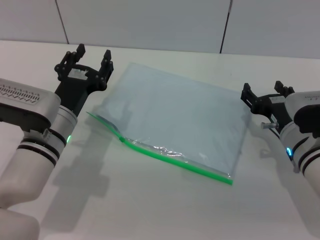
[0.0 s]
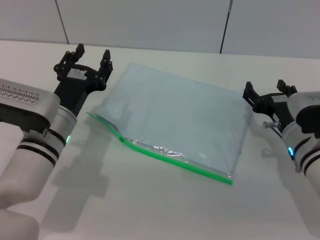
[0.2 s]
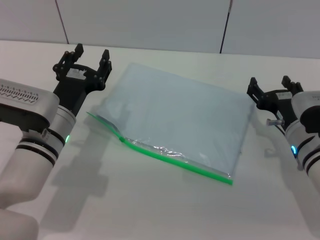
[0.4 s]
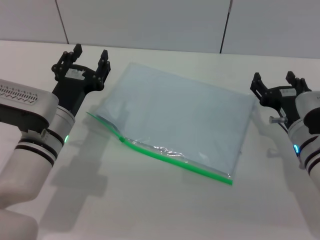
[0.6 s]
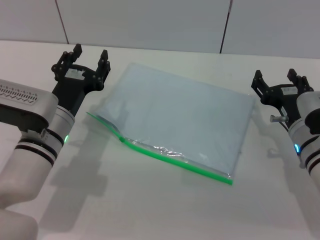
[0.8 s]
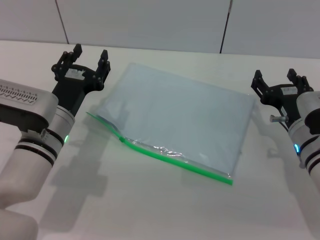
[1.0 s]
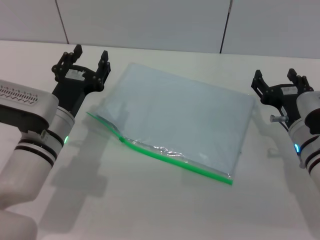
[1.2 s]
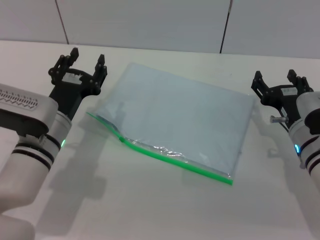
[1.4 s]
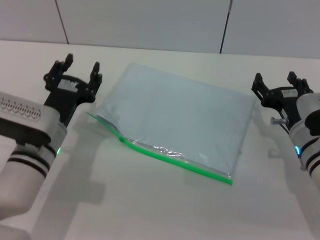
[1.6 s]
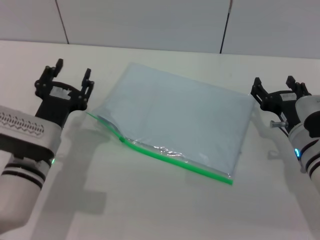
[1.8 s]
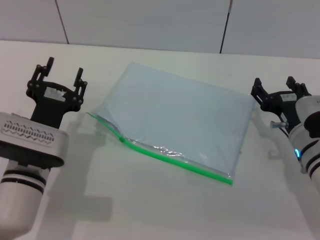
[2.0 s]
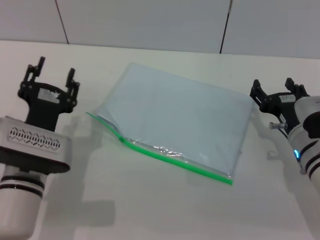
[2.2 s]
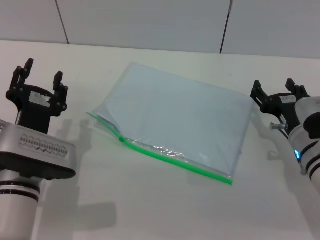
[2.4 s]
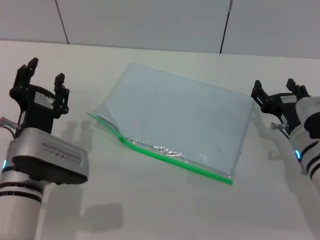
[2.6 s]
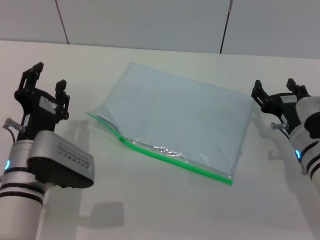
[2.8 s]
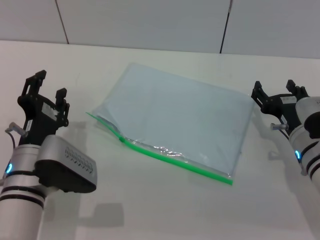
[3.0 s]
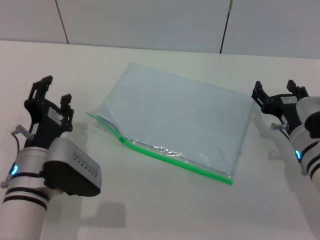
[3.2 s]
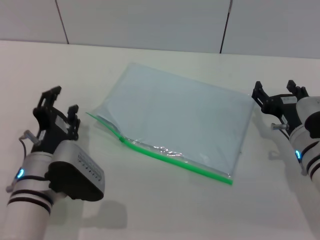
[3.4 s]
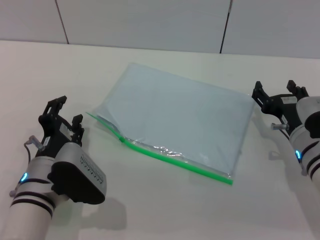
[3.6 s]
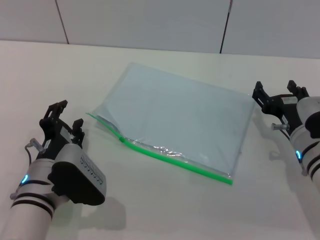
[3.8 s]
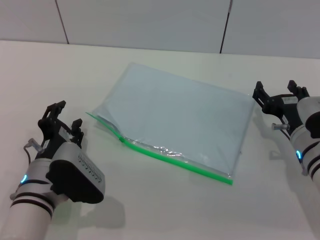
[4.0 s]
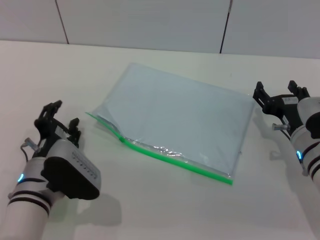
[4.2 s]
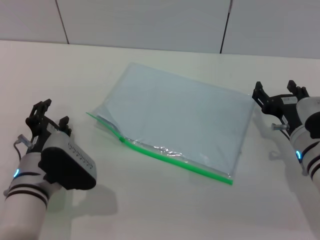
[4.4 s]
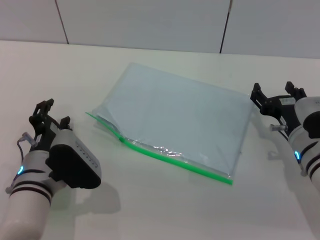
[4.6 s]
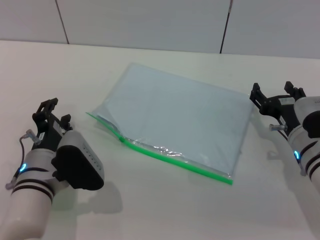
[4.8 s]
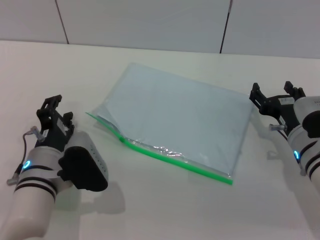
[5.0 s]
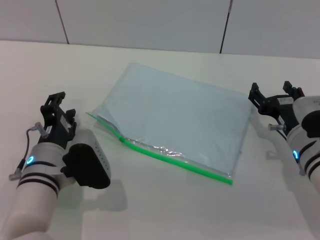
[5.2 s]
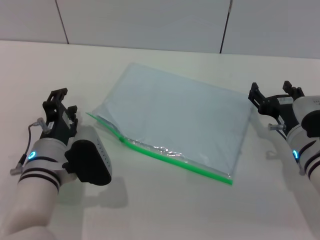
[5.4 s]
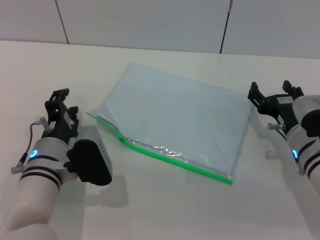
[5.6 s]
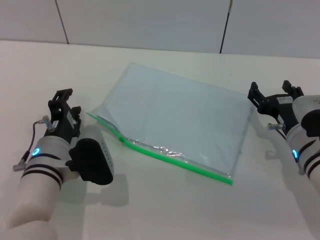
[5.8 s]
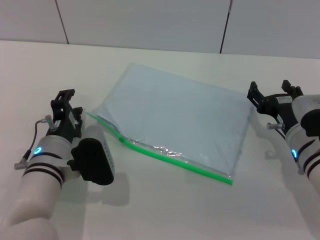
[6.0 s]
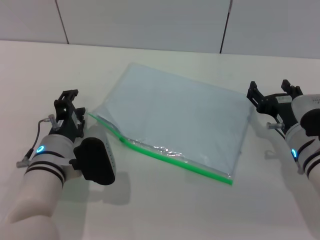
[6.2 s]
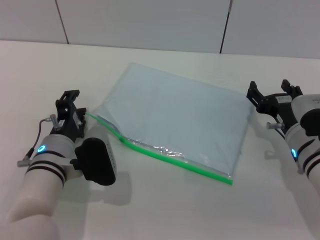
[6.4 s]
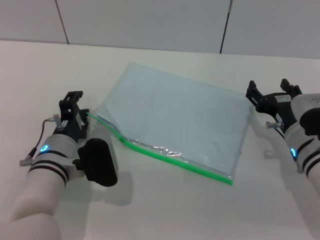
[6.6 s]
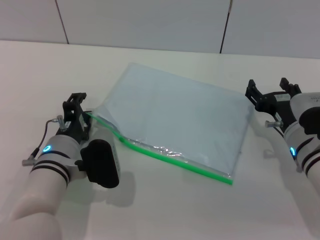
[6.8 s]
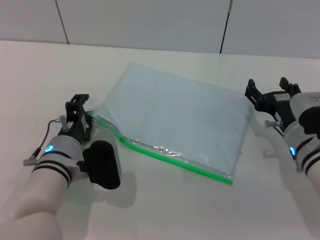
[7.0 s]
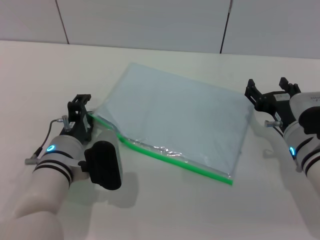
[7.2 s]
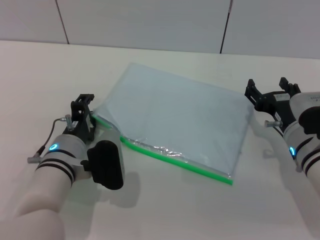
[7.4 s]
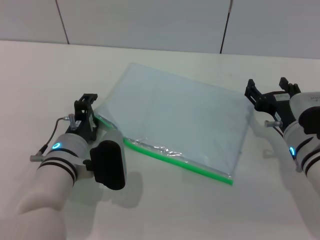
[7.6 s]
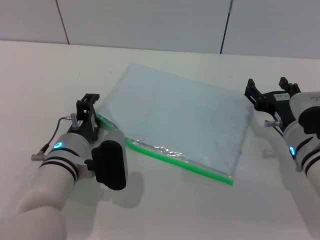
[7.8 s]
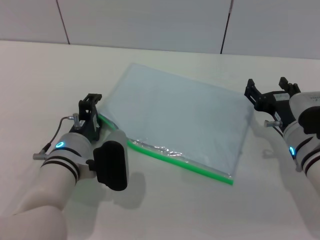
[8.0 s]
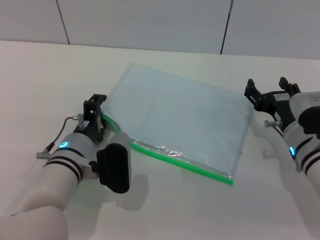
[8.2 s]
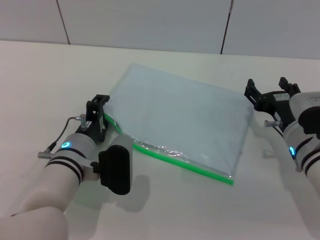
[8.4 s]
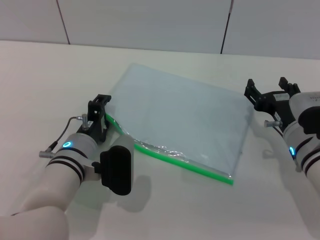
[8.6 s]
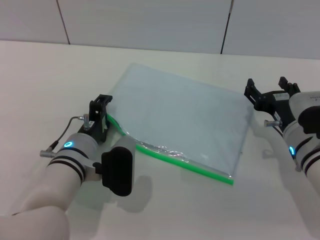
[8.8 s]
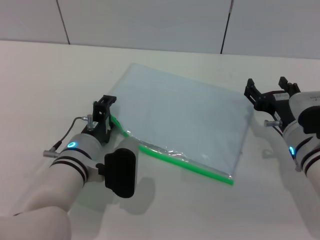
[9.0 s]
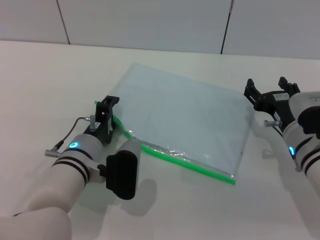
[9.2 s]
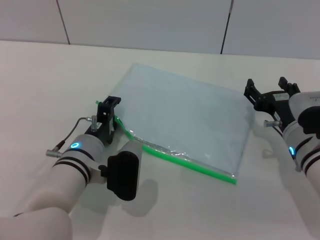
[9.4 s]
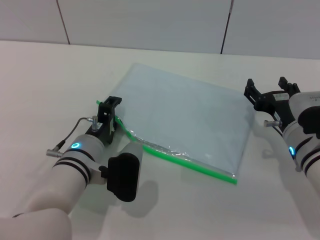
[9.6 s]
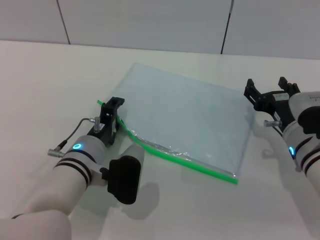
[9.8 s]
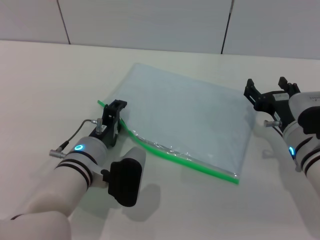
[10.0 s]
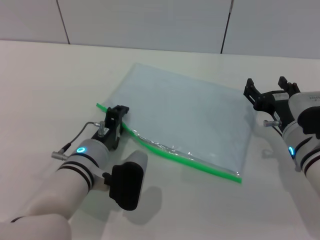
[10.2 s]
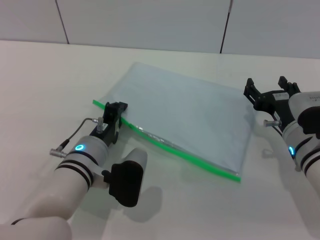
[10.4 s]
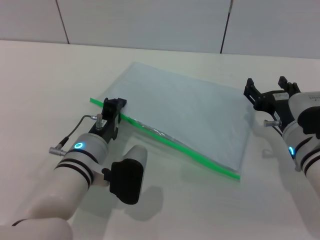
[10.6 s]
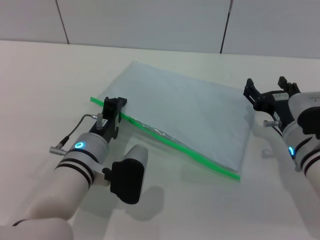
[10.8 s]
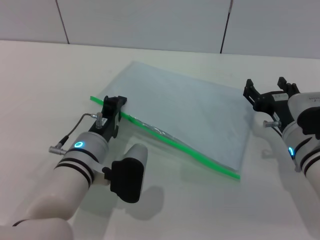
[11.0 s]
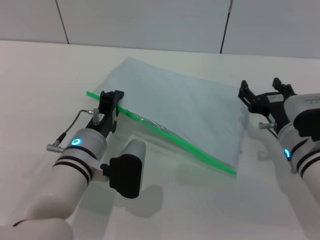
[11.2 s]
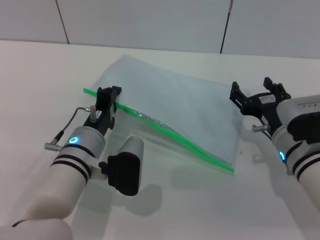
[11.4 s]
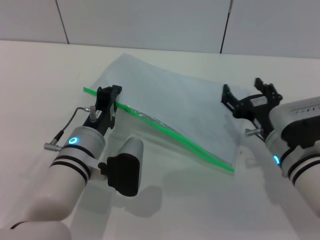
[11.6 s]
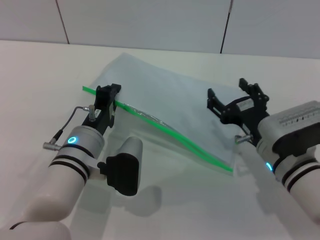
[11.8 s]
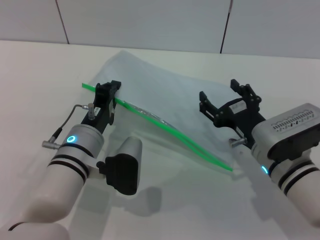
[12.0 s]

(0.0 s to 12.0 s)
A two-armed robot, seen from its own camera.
Step, 0.0 s - 11.4 s: Pick up the transparent plastic bag with the left gripper.
0.0 s - 1.6 s: There are only small adjustments of the grippers.
1.6 s - 3.0 s: The left gripper is displaced backward by some 5 cm.
3.0 s - 4.4 s: The grippers stay close to where they were, moving slightly.
4.4 s - 6.0 s: The grippers move only a little.
6.0 s - 9.0 s: The grippers stay close to where they were, moving slightly.
9.0 s - 10.4 s: The left gripper closes.
10.4 s - 12.0 s: The right gripper changes place by some 5 cm. The left gripper closes up.

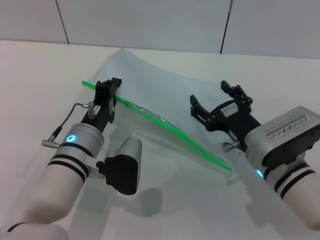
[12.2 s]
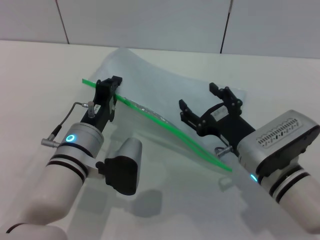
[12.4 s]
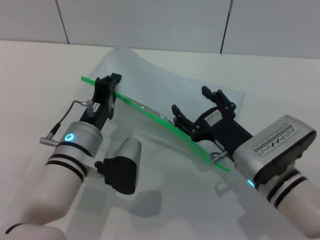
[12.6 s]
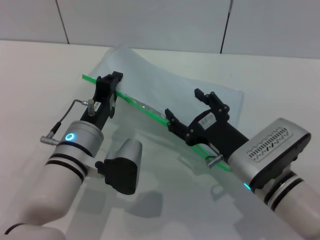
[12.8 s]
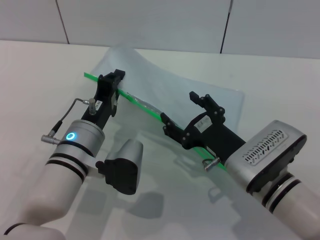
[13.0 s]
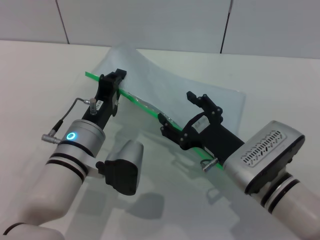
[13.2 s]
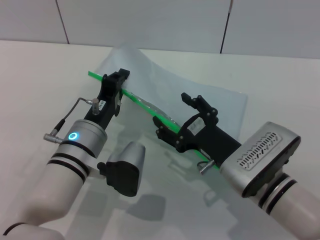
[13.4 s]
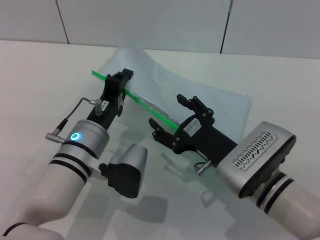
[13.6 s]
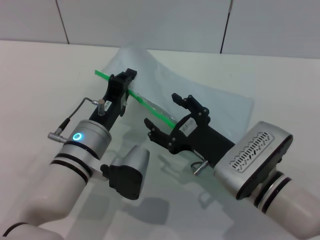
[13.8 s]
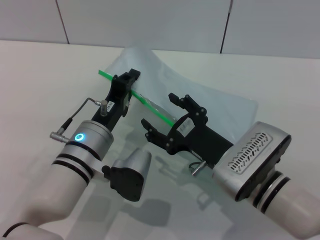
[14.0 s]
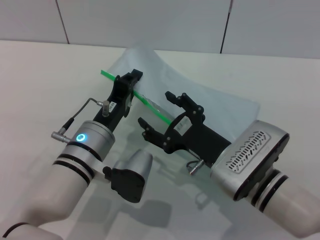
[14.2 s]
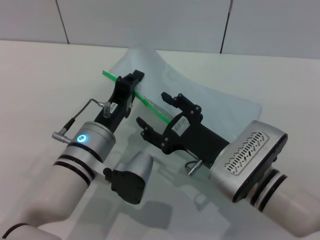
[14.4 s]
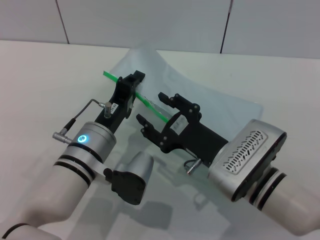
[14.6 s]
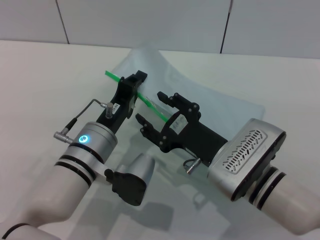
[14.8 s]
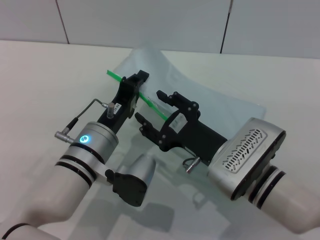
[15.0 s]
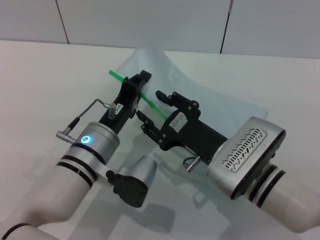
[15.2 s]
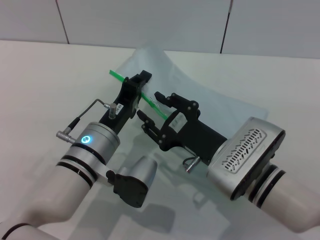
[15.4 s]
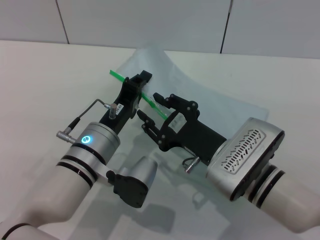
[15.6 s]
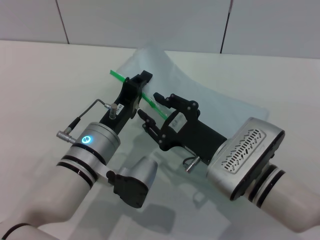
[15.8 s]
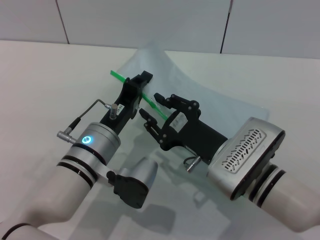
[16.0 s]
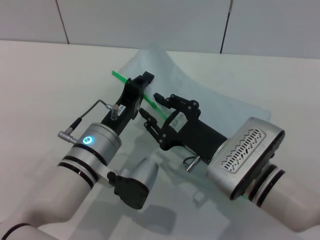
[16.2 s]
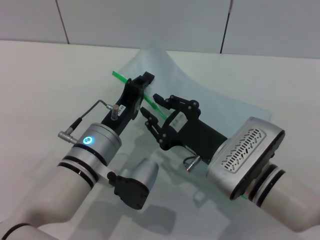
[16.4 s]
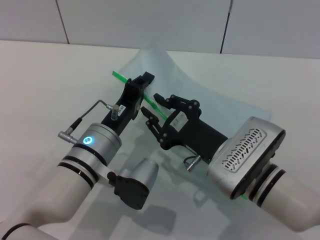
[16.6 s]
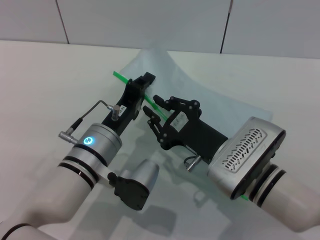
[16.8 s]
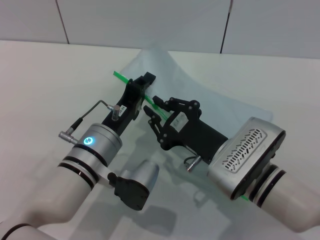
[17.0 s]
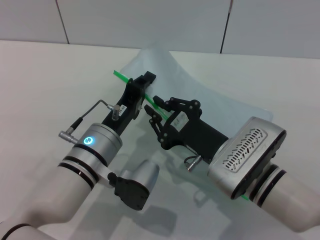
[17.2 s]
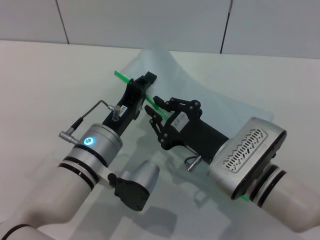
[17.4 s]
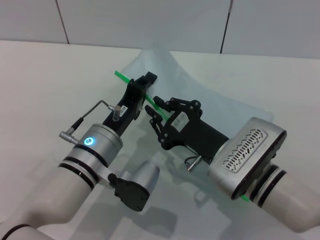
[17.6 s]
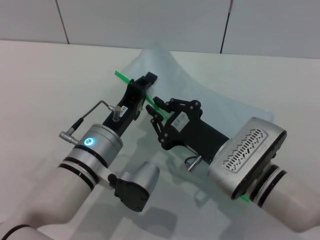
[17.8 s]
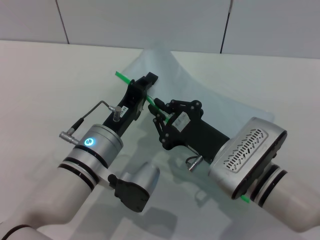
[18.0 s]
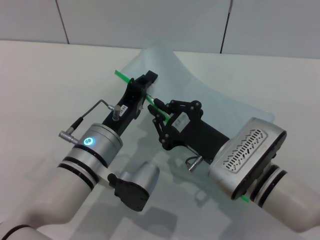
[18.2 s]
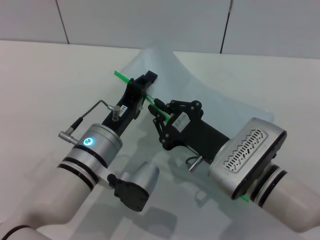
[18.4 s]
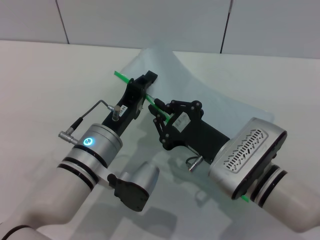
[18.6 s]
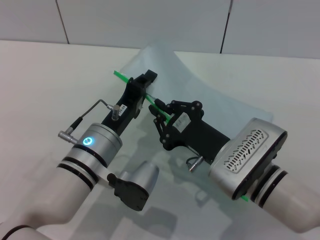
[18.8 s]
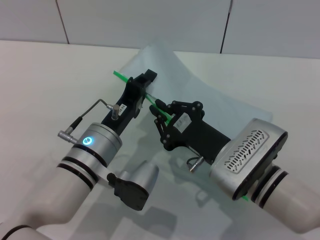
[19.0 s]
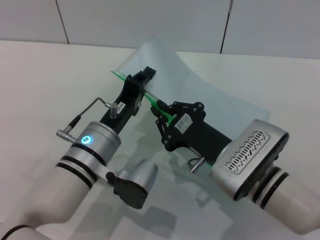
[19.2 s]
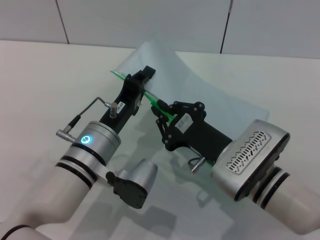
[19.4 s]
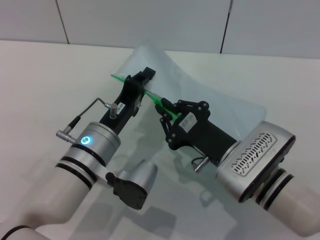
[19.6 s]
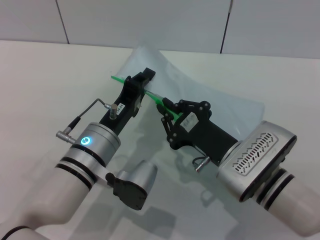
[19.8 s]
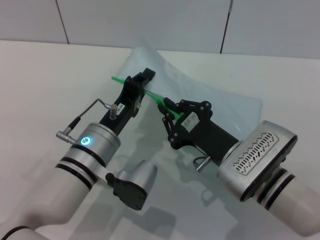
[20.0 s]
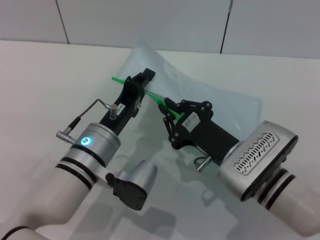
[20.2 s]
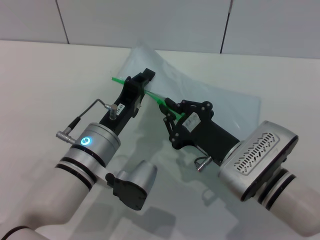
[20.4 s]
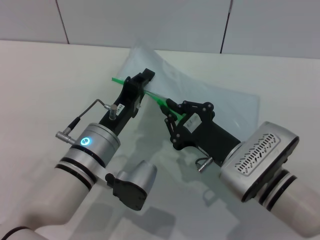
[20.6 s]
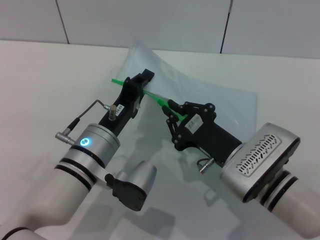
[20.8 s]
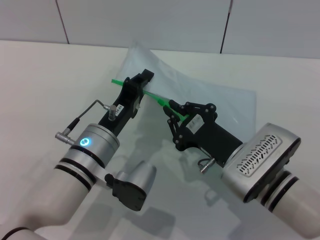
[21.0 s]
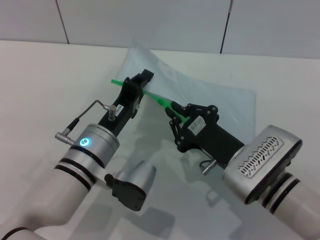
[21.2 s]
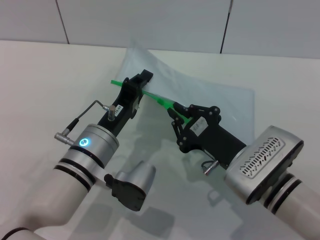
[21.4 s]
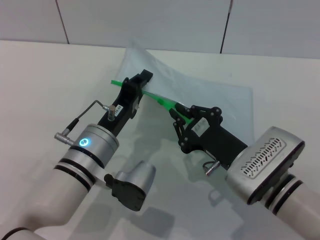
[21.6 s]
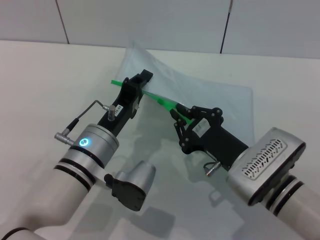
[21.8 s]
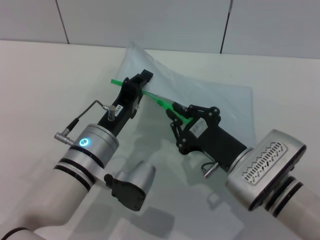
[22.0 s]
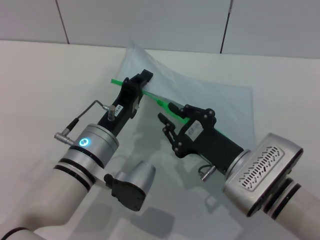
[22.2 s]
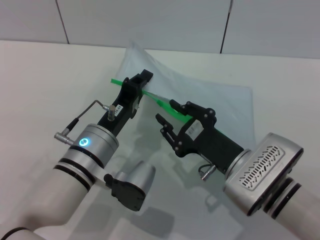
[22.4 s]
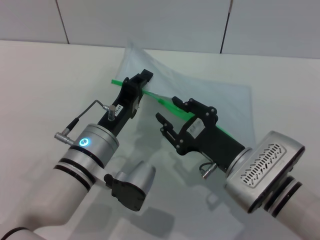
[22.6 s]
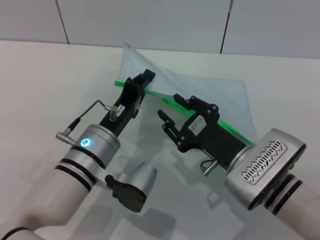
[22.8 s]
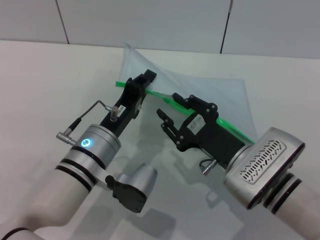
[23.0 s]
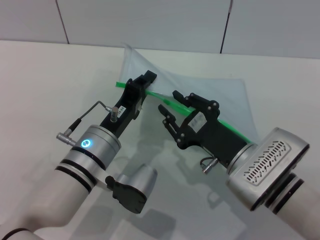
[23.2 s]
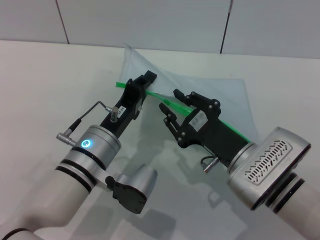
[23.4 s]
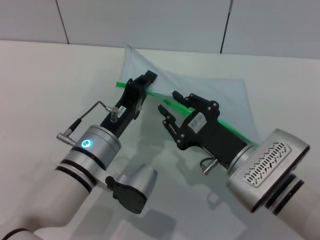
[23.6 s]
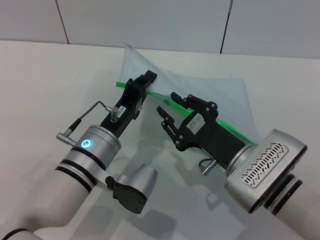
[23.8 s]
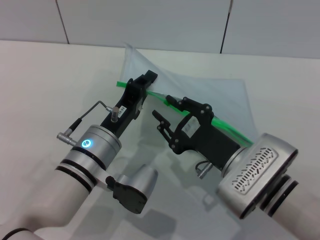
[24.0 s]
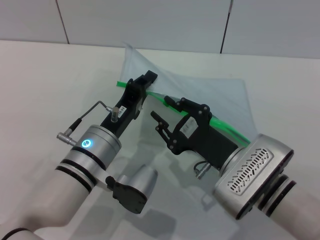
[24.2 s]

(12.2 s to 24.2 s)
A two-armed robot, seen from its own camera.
13.8 s - 15.2 s: The grippers stay close to where they were, moving slightly.
15.2 s - 16.6 s: The right gripper closes up.
16.6 s - 19.8 s: Neither gripper changes place.
19.8 s - 21.2 s: The two grippers keep their place.
21.2 s - 22.6 s: Both grippers stay put.
22.6 s - 24.2 s: The grippers move only a little.
